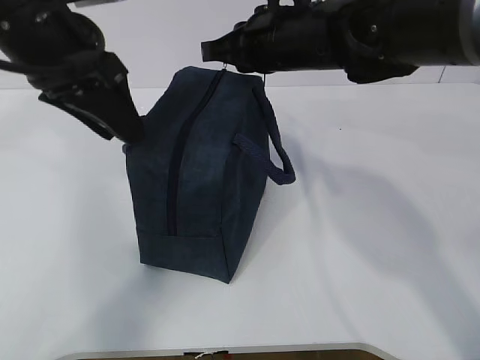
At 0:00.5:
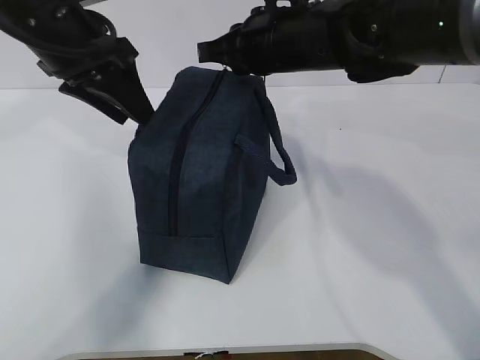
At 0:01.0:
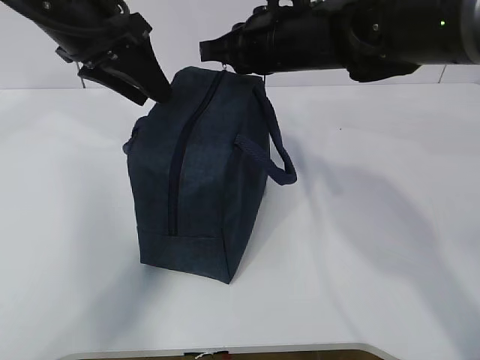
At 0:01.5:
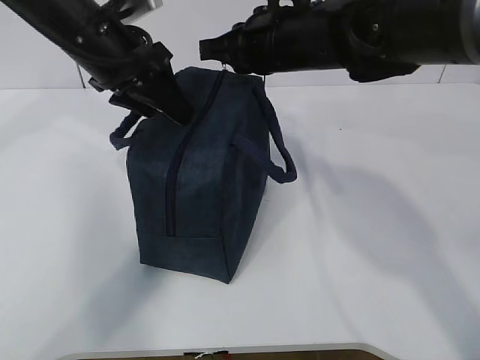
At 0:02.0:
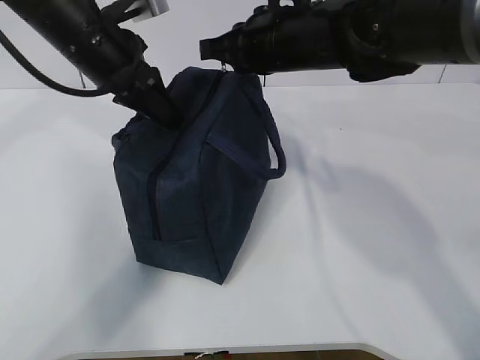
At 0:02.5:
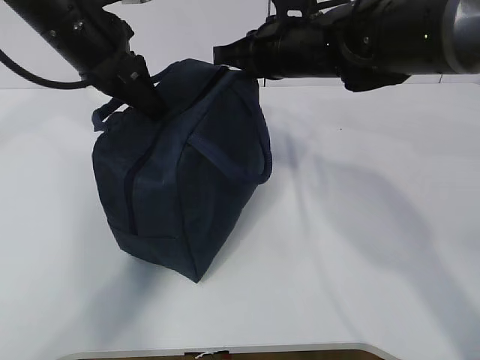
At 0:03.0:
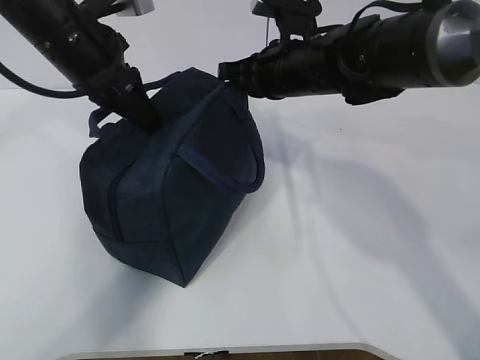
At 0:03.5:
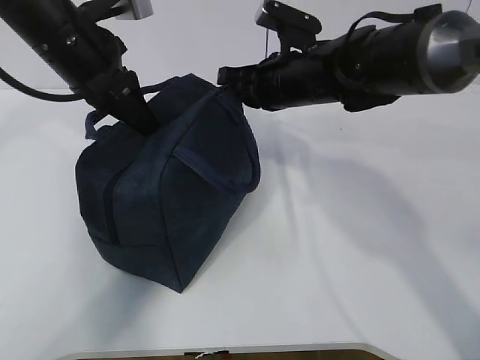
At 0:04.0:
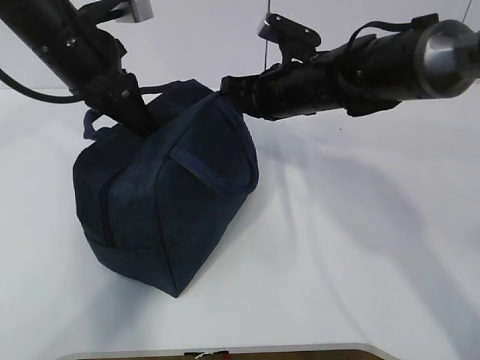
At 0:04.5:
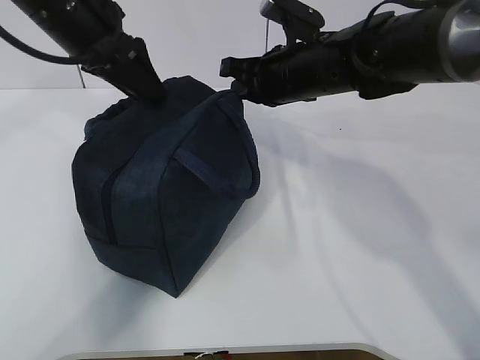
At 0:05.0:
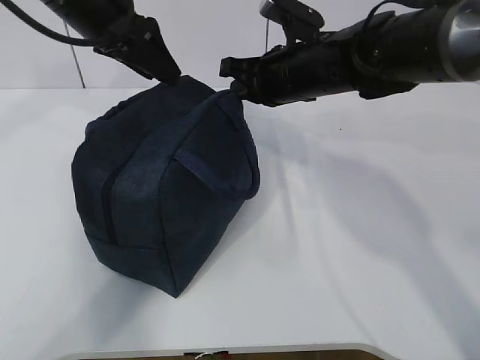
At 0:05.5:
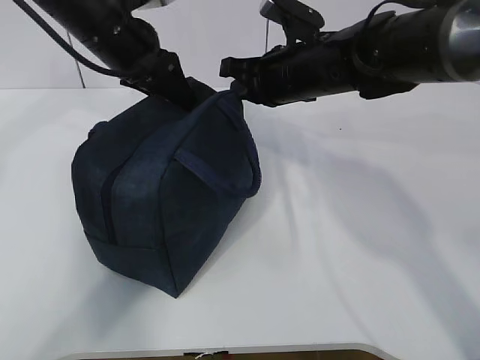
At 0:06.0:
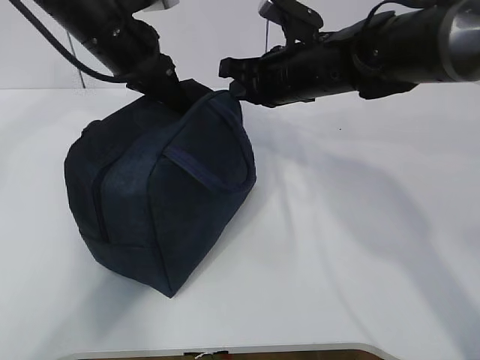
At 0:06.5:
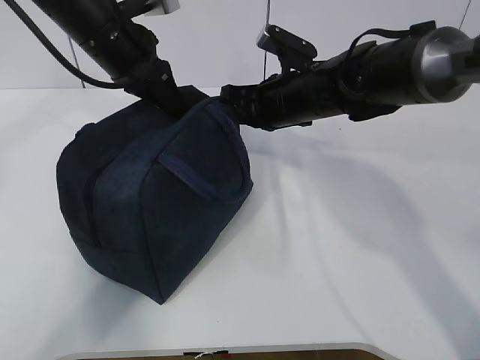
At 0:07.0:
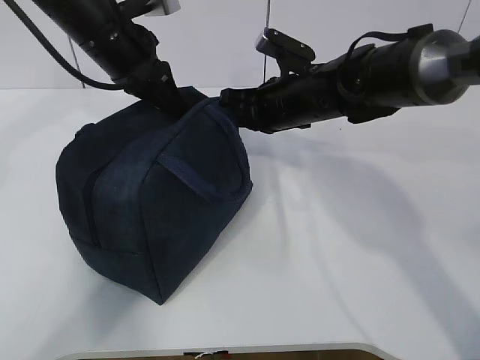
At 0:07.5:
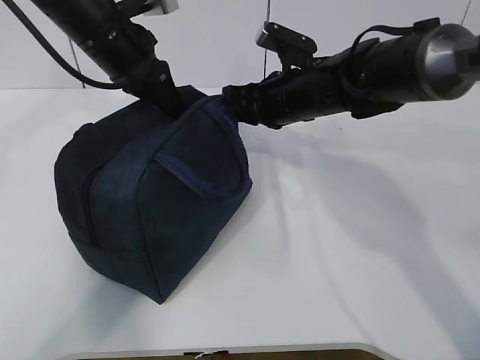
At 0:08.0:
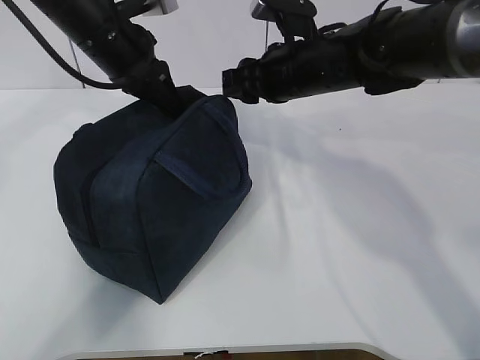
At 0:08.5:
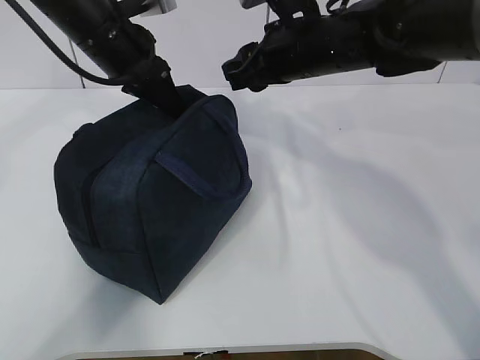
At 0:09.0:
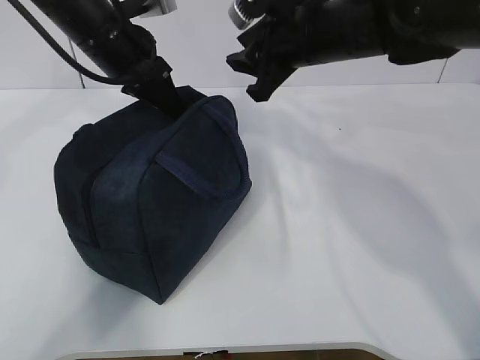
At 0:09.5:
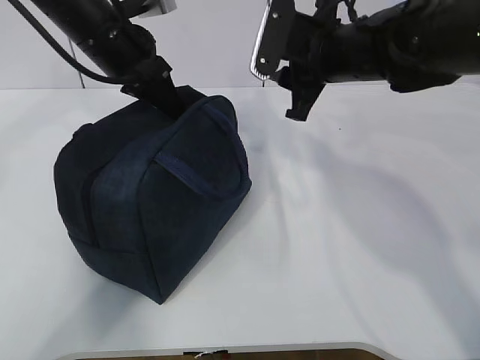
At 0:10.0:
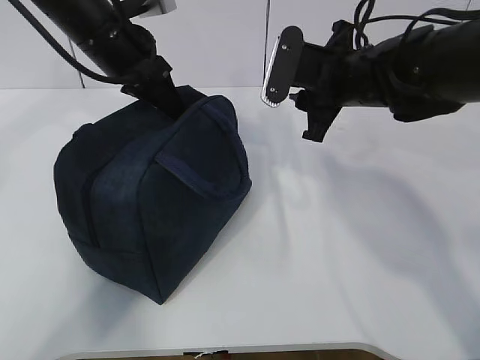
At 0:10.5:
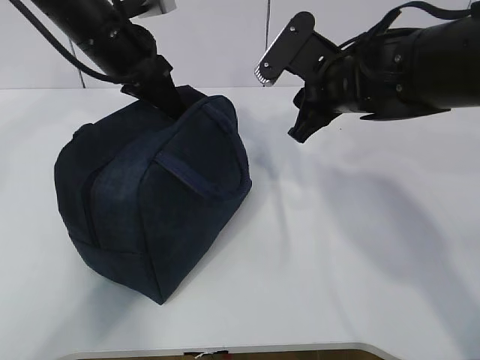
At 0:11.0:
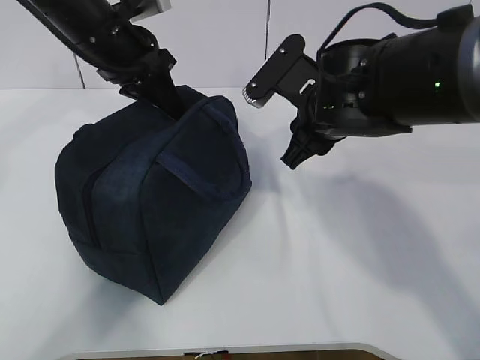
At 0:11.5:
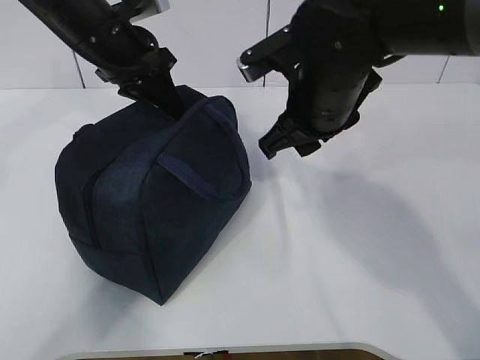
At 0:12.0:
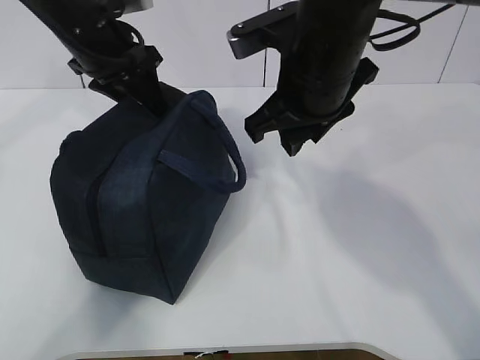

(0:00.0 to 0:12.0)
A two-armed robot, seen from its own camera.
0:00.0 - 0:02.0: The left gripper moves forward, roughly 10 cm, and closes.
0:02.0 - 0:04.0: The right gripper travels downward by about 5 cm.
0:04.0 - 0:06.0: The left gripper shifts about 5 cm forward, and opens, then closes once more.
0:06.0 - 0:08.0: The right gripper opens its fingers.
0:08.0 - 0:10.0: The right gripper shifts by some 5 cm.
0:10.0 - 0:12.0: The left gripper opens its fingers; the right gripper travels backward, to the left and upward by some 10 cm.

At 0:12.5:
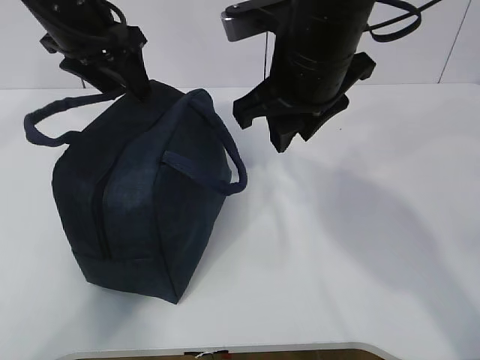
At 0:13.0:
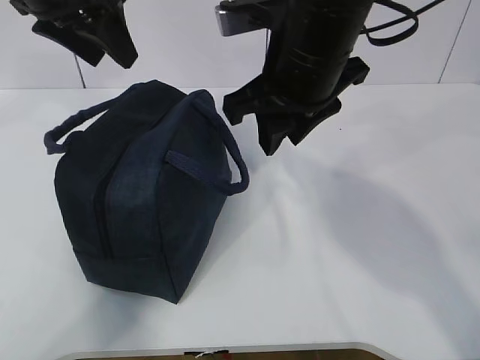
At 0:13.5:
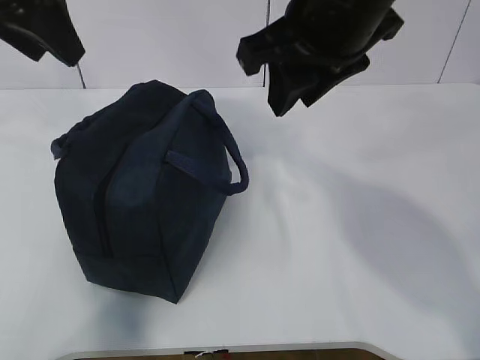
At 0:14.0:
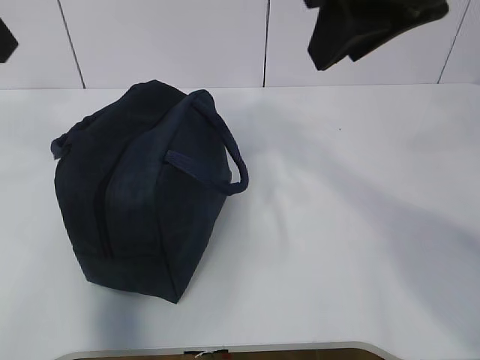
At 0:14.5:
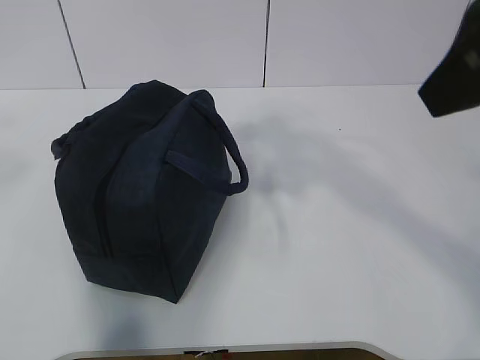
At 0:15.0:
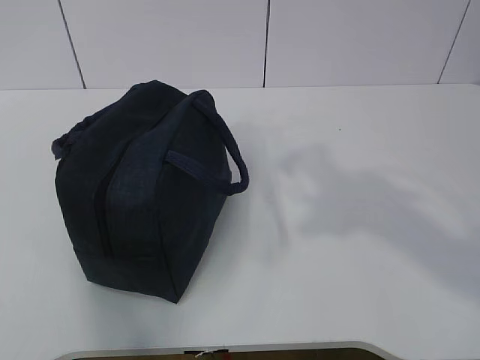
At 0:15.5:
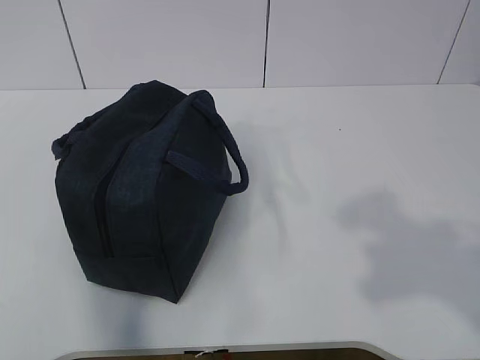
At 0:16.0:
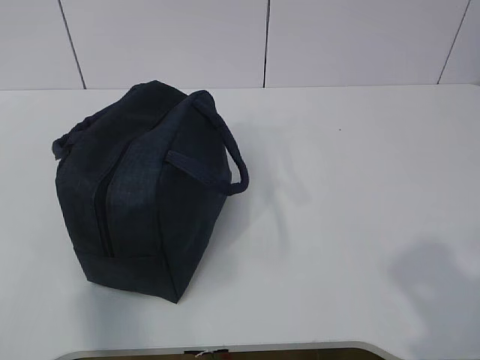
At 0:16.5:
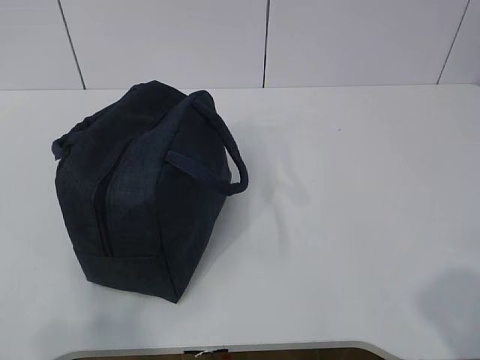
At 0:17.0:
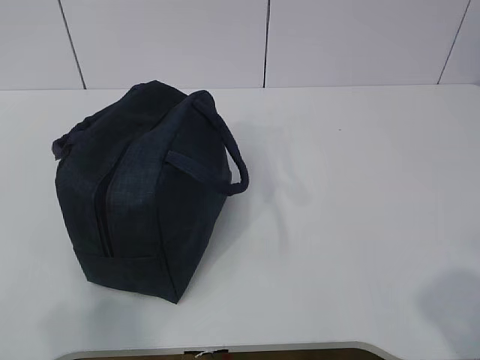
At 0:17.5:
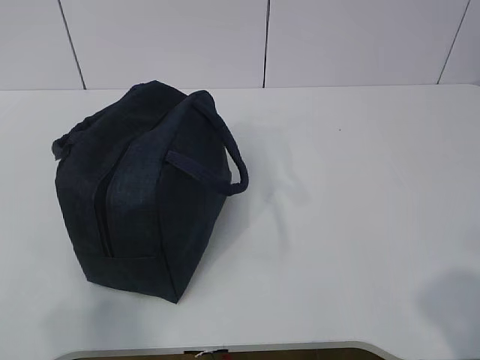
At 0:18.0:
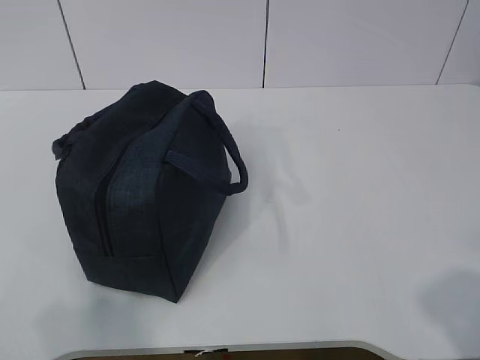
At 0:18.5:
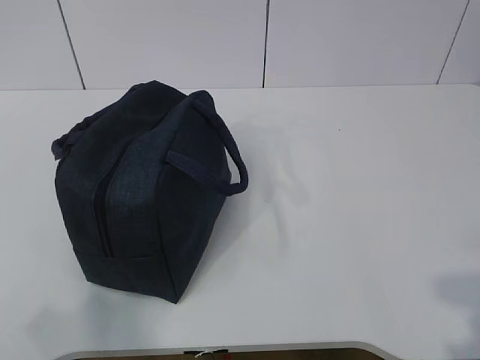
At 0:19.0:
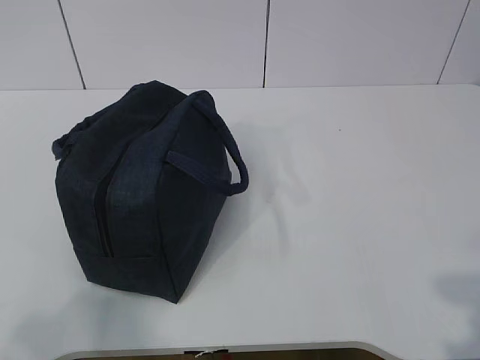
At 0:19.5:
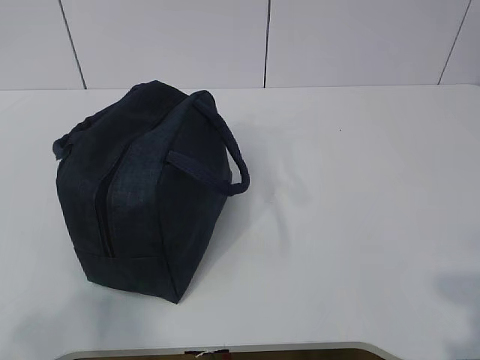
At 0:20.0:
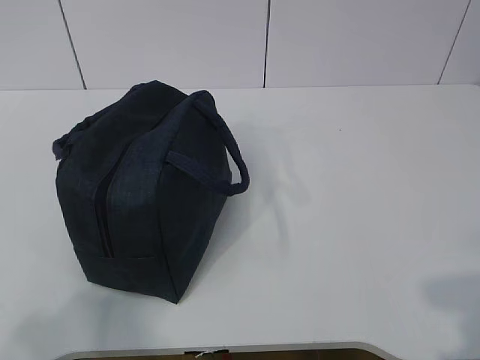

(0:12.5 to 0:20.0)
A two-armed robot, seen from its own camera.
0:12.5 - 0:14.5: The left gripper travels backward and upward by about 30 cm, and closes up; the right gripper is displaced backward, upward and to the right by some 20 cm.
0:14.5 - 0:16.5: The left gripper travels backward and downward by roughly 25 cm; the right gripper shifts some 25 cm backward, downward and to the right.

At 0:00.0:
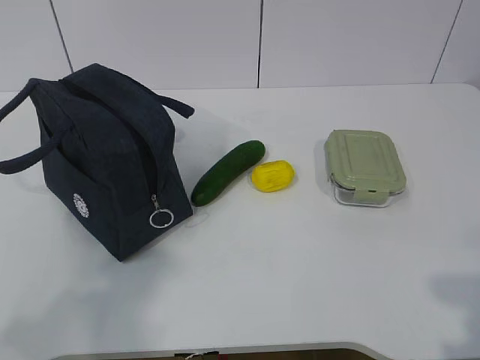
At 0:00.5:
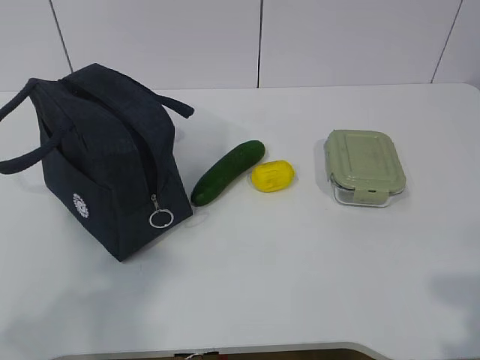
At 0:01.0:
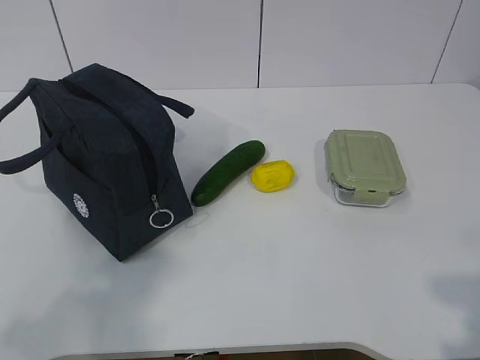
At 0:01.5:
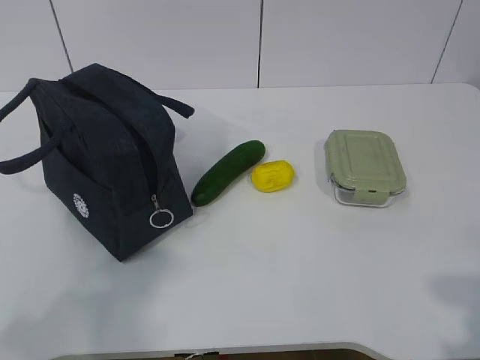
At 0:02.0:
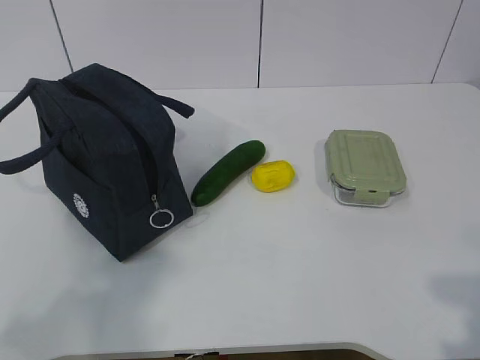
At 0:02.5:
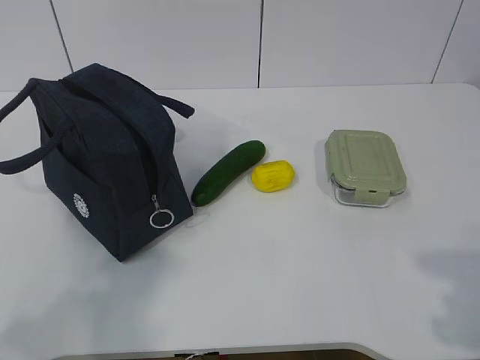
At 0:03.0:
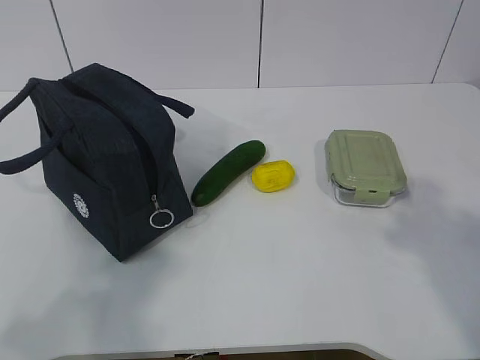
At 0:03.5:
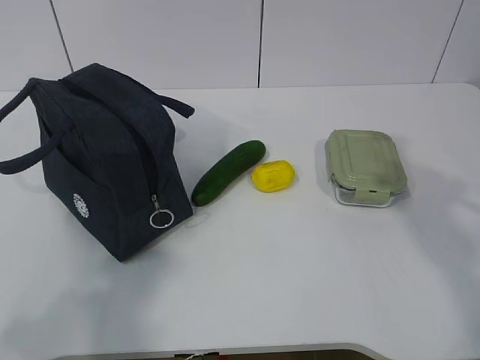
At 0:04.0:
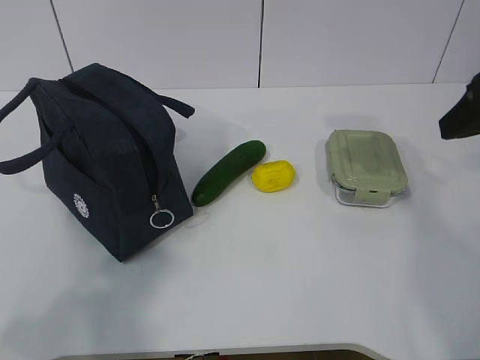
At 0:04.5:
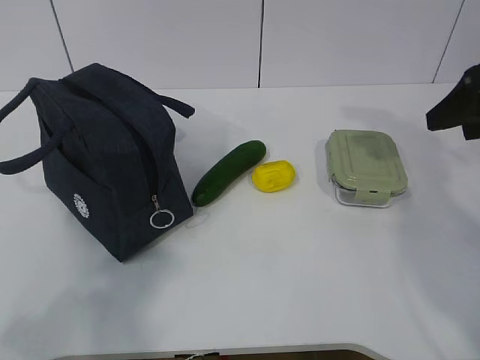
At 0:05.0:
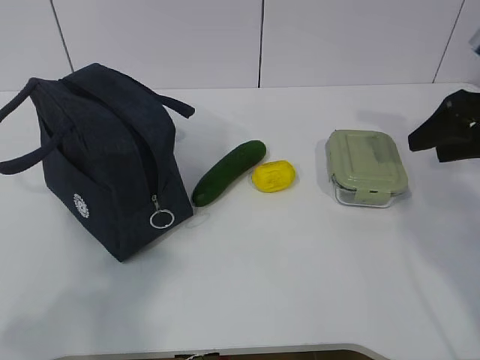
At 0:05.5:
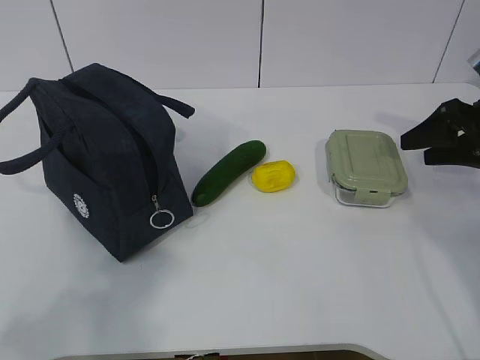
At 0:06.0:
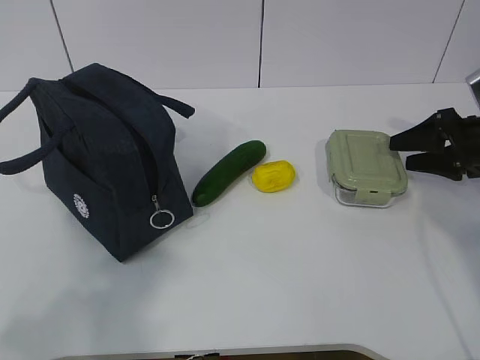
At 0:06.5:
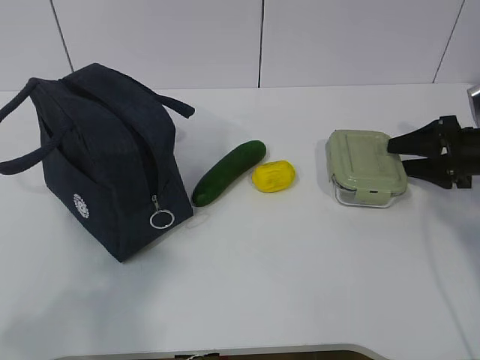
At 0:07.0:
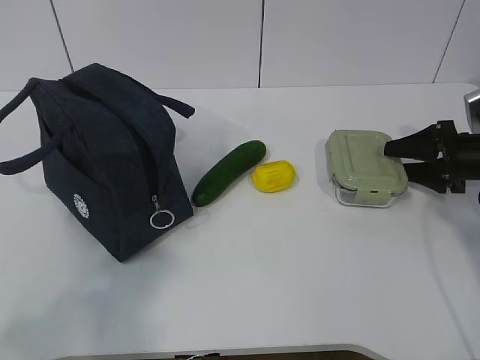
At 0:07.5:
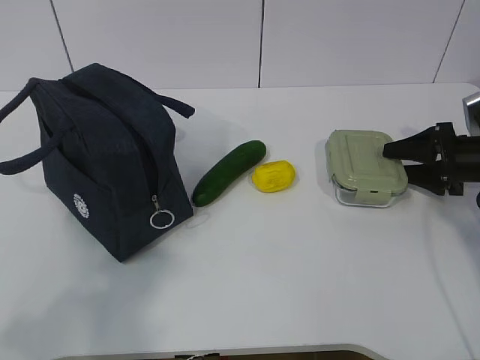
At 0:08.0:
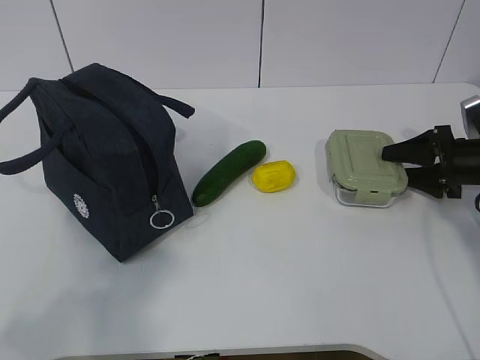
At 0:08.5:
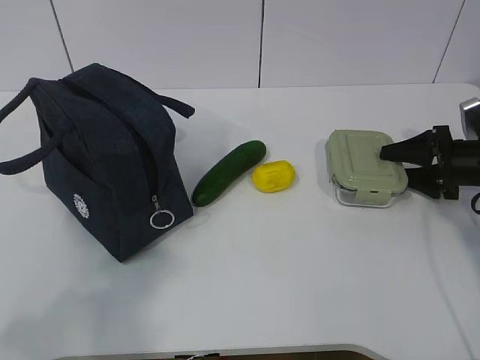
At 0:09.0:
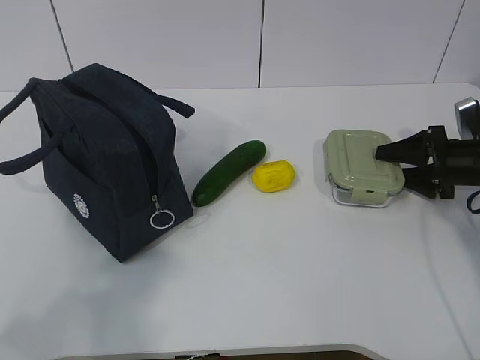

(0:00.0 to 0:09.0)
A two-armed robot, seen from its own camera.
Step, 0:00.0 - 0:09.0: Grab the lunch box with your right hand.
0:02.0 - 0:04.5: The right gripper shifts some 30 cm forward.
0:04.5 - 0:07.0: The right gripper is displaced downward and forward by roughly 20 cm.
0:07.0 - 0:09.0: The grippers stay close to where they were, moving slightly.
